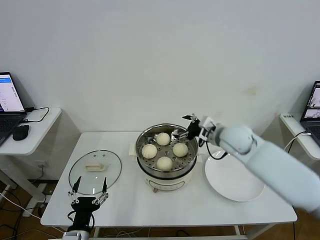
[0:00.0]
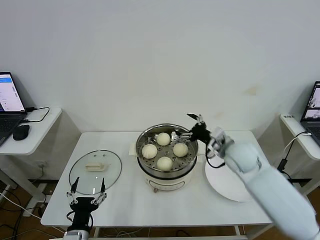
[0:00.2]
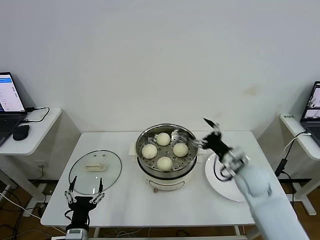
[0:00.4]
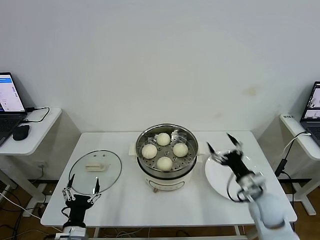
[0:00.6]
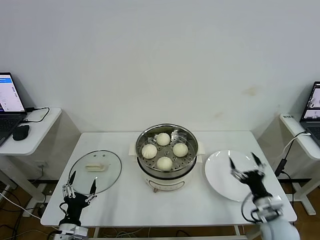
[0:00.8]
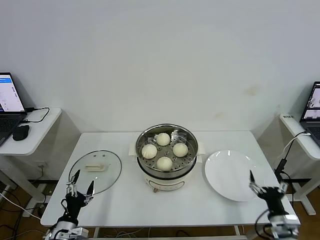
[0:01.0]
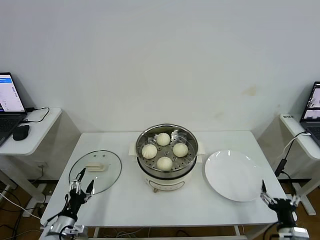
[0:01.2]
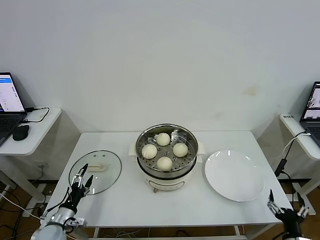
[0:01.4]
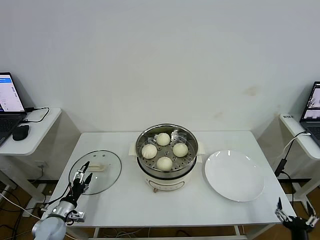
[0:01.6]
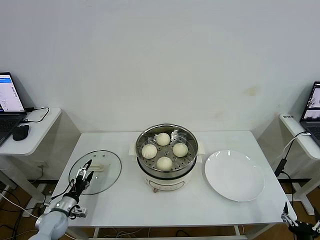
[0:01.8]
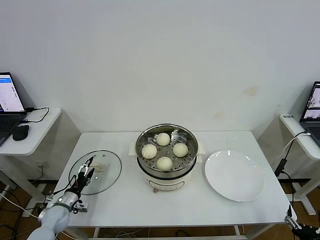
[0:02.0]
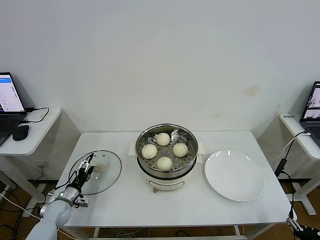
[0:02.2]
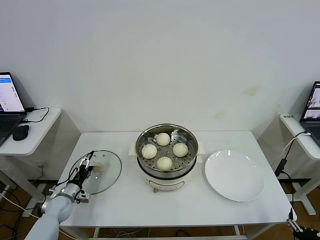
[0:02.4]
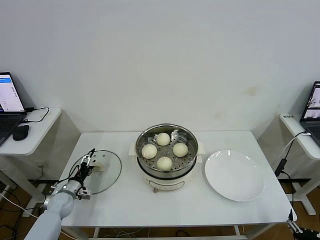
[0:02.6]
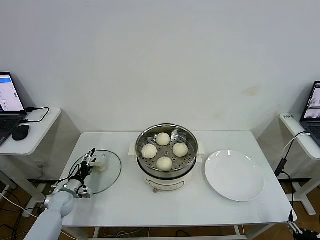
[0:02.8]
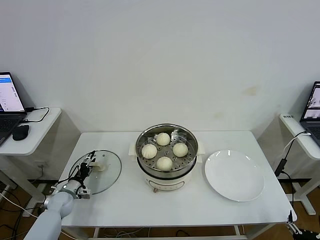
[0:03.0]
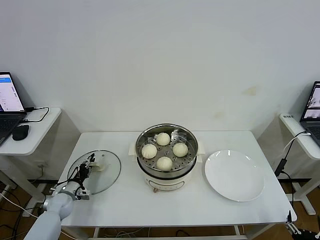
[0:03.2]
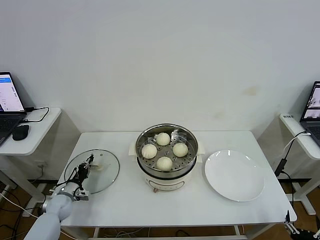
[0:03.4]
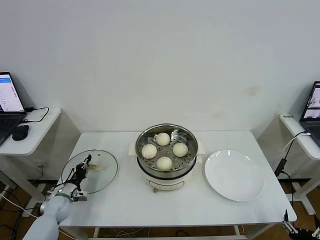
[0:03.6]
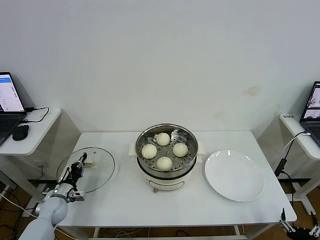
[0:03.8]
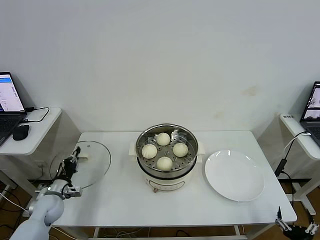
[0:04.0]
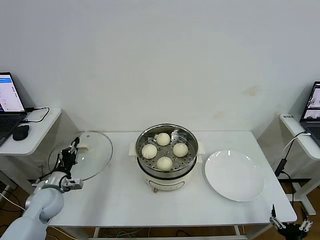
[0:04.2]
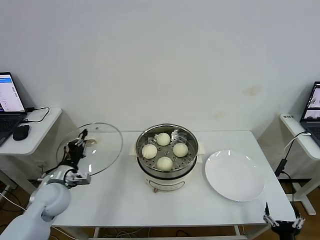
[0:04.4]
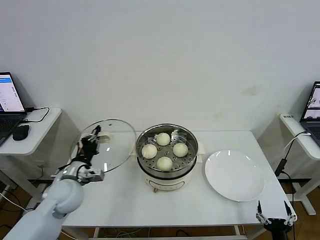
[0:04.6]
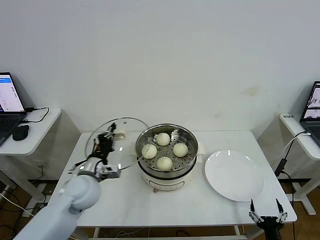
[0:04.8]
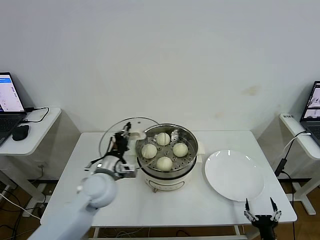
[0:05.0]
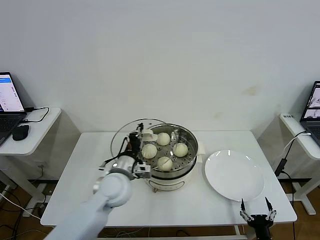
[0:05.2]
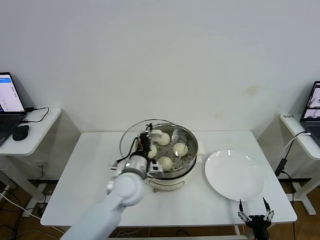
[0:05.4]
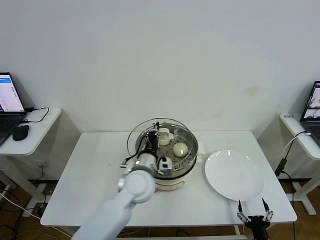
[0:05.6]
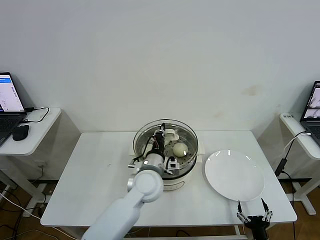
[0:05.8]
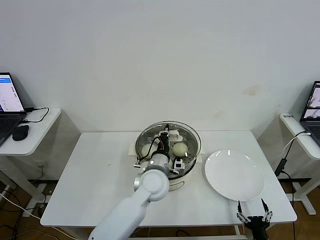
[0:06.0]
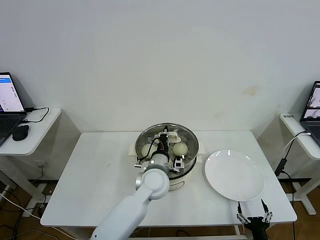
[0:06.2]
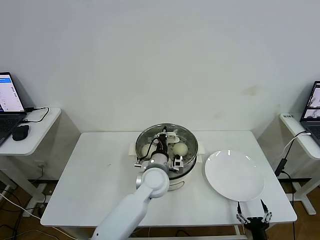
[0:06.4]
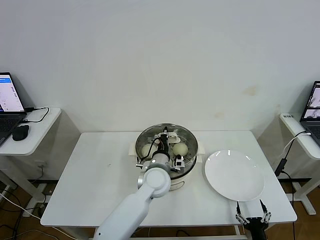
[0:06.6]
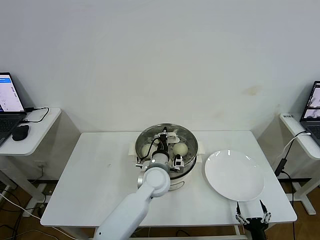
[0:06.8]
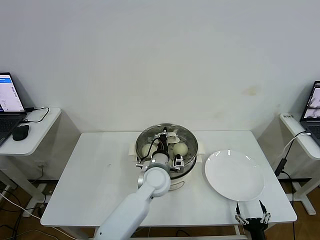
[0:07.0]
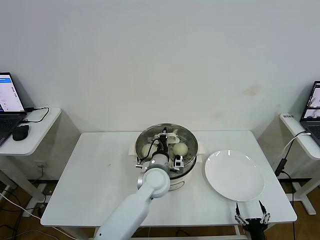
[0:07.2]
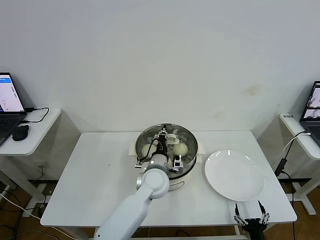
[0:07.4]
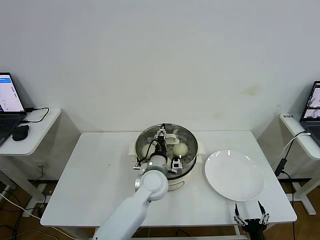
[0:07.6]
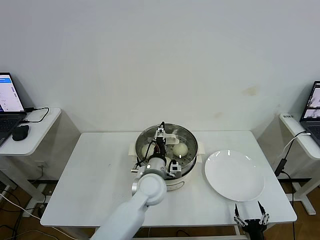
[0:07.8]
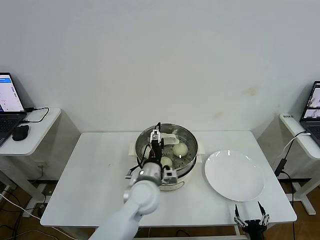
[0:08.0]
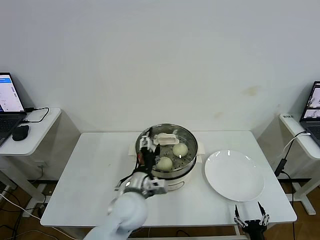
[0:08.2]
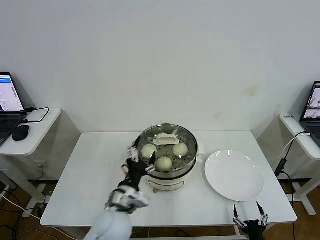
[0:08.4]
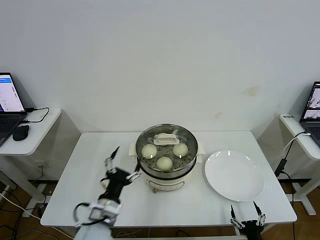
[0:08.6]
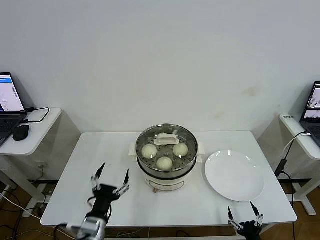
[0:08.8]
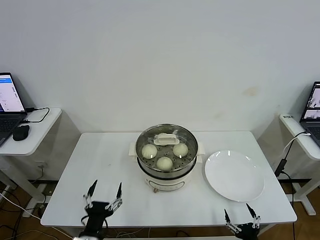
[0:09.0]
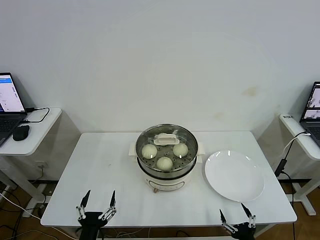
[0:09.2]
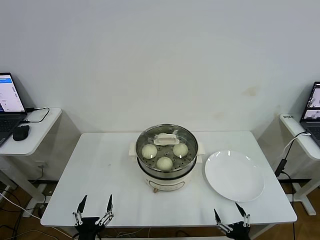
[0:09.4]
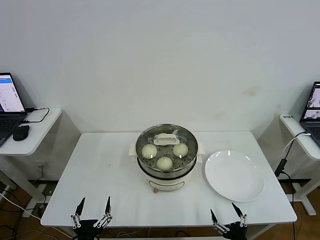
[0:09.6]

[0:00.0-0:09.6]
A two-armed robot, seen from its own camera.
Step, 0:00.0 to 0:03.6: Grasp the pot lid with left gripper.
Step, 0:03.8 to 0:08.2: Place the pot lid on the steamer with left gripper.
0:00.0 to 0:01.6: The left gripper heads to the left, forward and downward, covering roughly 20 cm; the right gripper is displaced backward, downward and to the right by some 50 cm.
0:01.6 to 0:03.2: The left gripper heads forward, covering about 10 cm, and closes up.
0:03.2 to 0:04.8: The left gripper goes roughly 30 cm upward and to the right, and closes up; the right gripper goes roughly 5 cm to the left.
0:04.8 to 0:06.4: The left gripper is displaced to the right by roughly 20 cm.
0:06.4 to 0:08.0: The left gripper ends up approximately 5 cm from where it was, and opens up.
0:08.0 to 0:09.6: The left gripper moves backward and to the left, some 30 cm. Meanwhile the right gripper moves upward, some 5 cm.

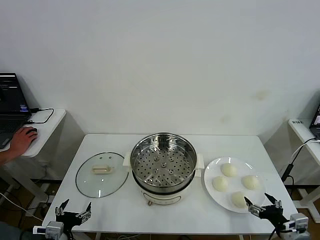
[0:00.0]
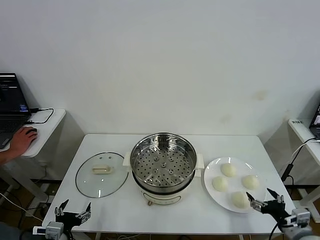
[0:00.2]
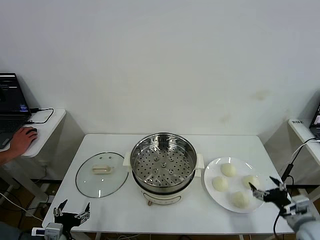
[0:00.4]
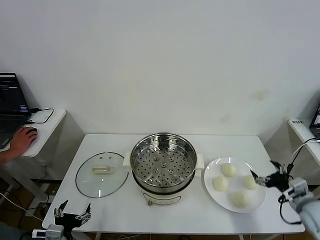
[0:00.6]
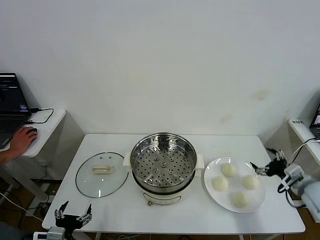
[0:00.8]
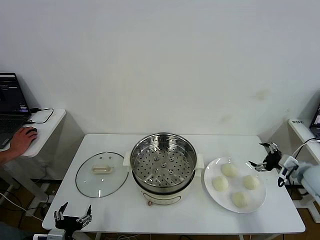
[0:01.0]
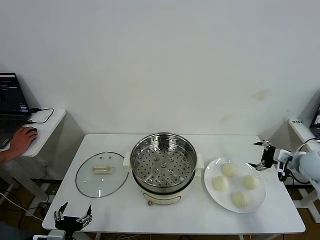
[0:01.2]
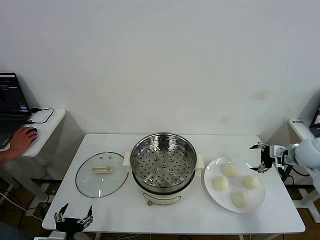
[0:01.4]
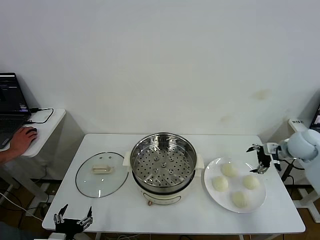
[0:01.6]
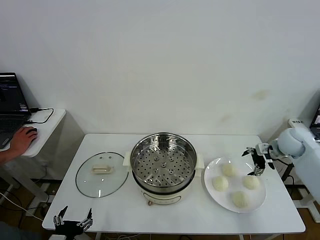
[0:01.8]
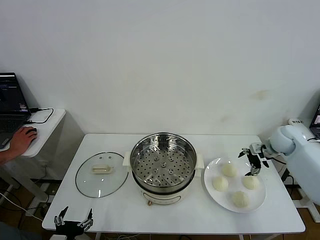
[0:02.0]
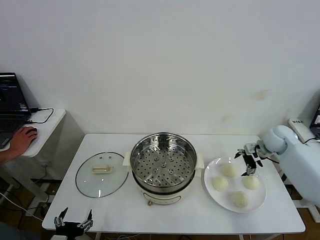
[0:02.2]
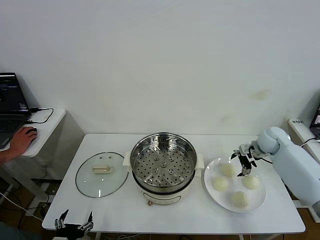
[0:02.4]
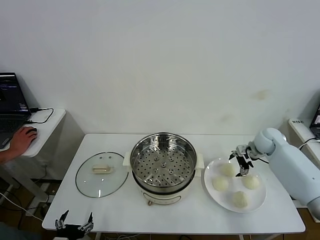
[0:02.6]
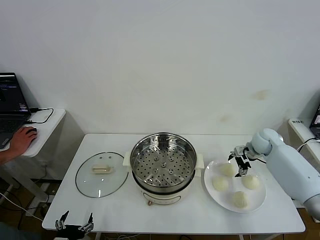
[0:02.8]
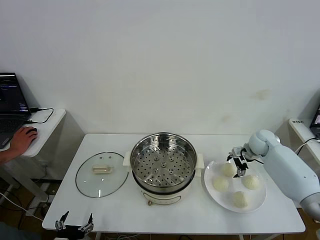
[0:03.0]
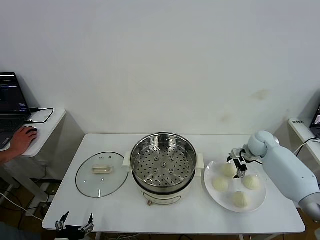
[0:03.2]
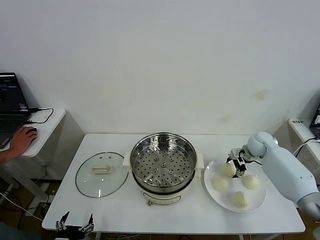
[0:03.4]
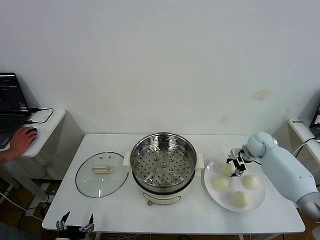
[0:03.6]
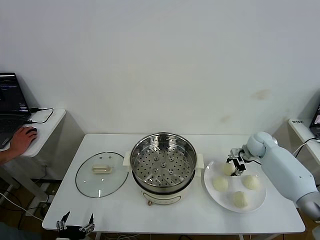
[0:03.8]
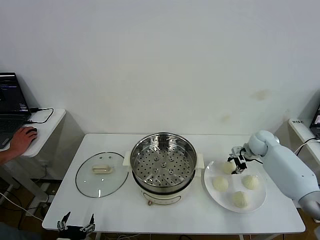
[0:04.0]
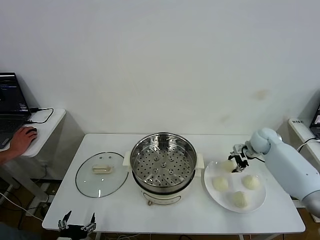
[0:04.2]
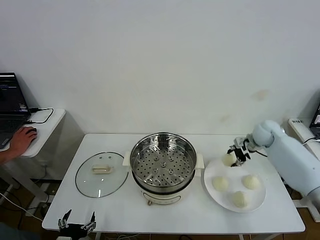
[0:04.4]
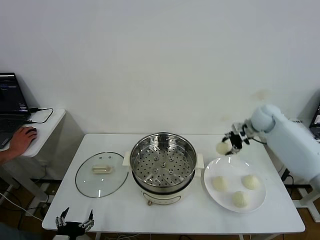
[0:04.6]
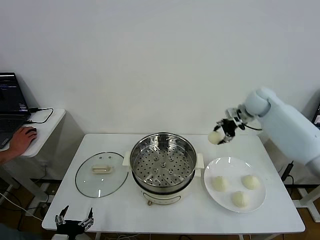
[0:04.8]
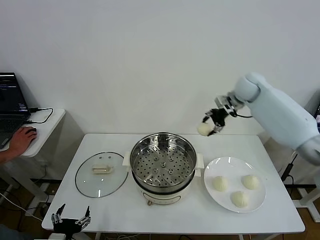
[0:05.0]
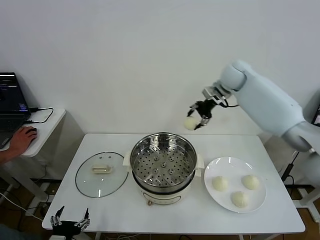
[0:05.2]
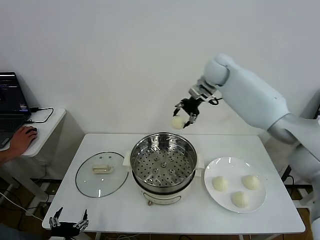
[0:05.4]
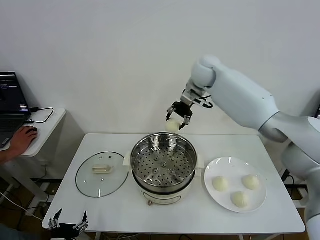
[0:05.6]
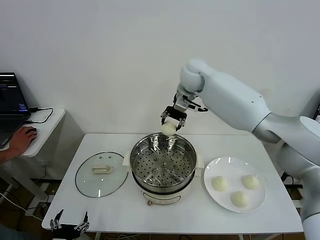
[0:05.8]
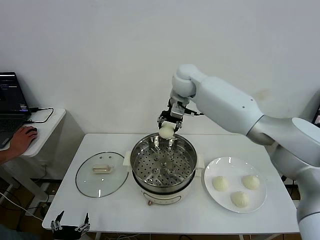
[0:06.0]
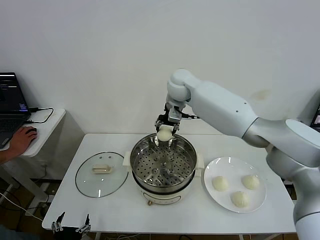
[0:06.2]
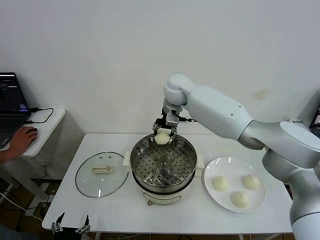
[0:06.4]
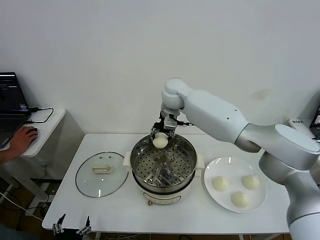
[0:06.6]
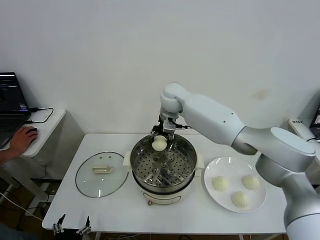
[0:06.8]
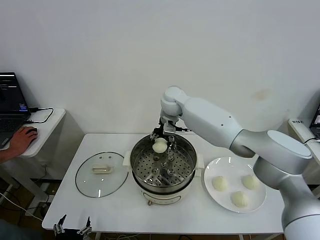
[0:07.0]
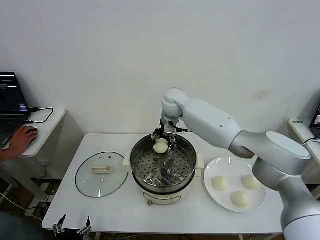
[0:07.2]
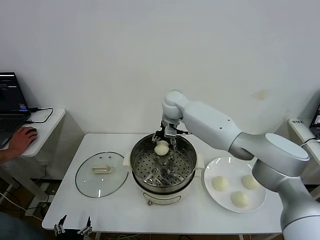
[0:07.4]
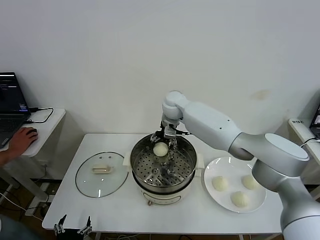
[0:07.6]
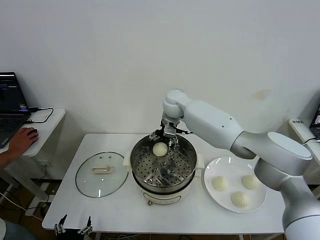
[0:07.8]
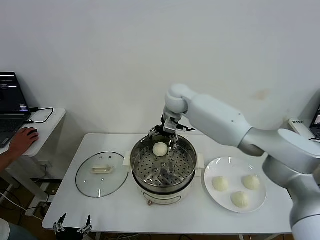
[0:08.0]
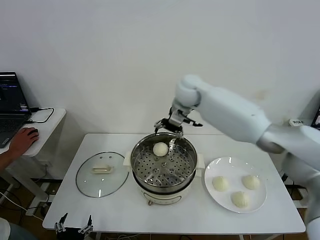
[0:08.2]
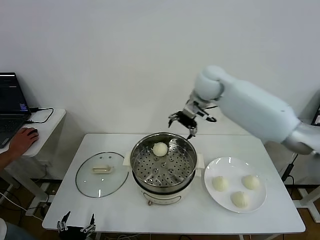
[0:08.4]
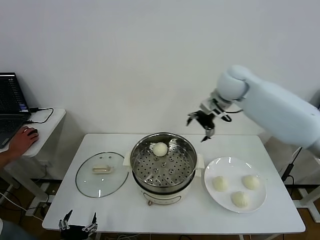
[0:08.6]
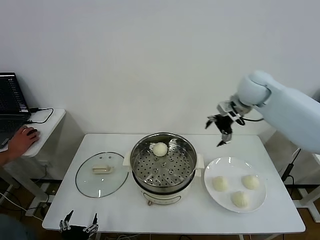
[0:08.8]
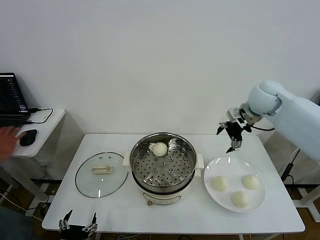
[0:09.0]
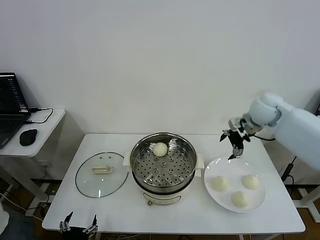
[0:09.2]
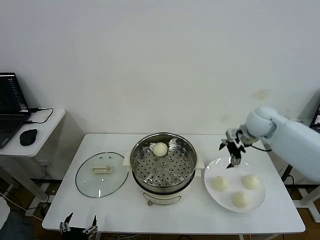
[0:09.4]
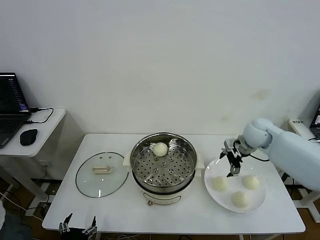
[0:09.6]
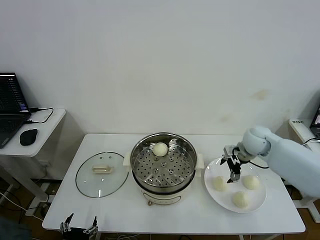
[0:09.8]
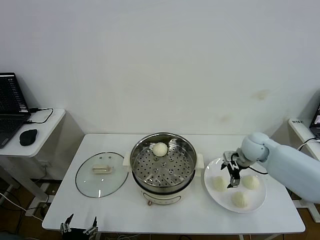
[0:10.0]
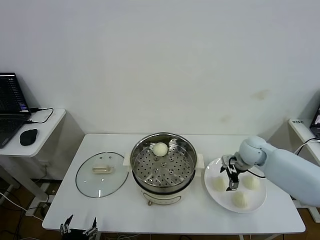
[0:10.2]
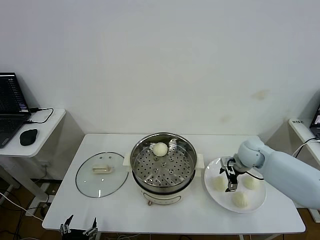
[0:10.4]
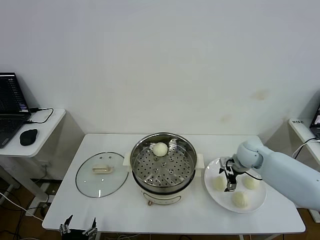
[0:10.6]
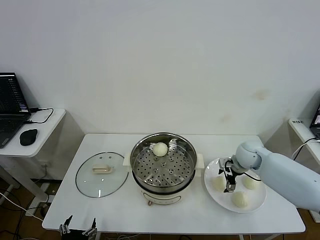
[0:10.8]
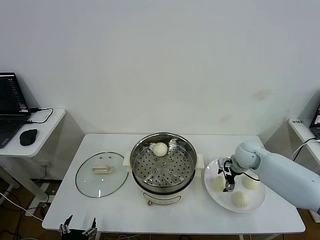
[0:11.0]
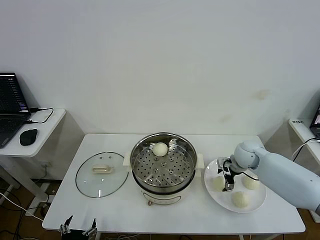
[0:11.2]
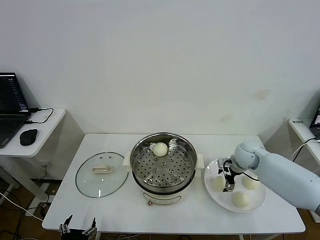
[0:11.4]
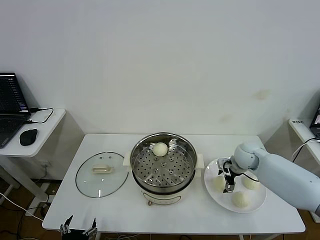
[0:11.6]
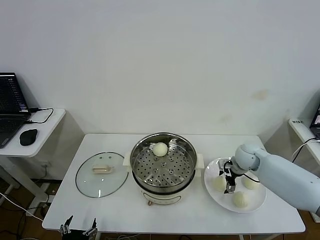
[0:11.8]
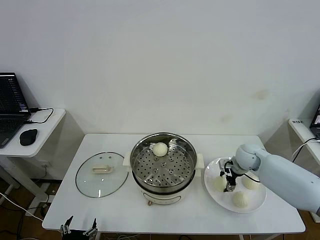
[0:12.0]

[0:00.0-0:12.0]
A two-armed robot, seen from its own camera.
Step, 0:00.0 to 0:03.4: Grasp the baozi in the plate with right gripper.
Step, 0:03.6 to 0:07.8: Place the baozi on the steamer with right gripper.
0:01.6 to 0:03.0: The right gripper heads downward, forward and to the left, covering roughly 10 cm.
0:03.0 to 0:04.4: The right gripper goes about 10 cm upward, and closes.
0:04.4 to 0:06.0: The right gripper goes approximately 35 cm to the left and upward.
0:06.0 to 0:07.6: The right gripper is displaced downward by roughly 10 cm, and opens its fingers.
0:07.6 to 0:09.0: The right gripper is displaced to the right by roughly 30 cm.
0:09.0 to 0:10.4: The right gripper is displaced downward by some 20 cm.
0:10.4 to 0:12.0: The right gripper closes its fingers.
